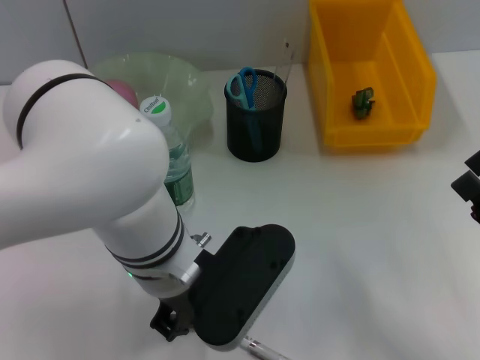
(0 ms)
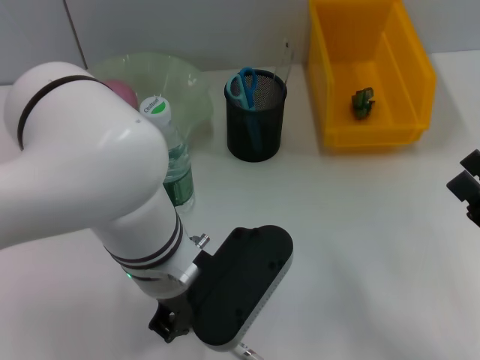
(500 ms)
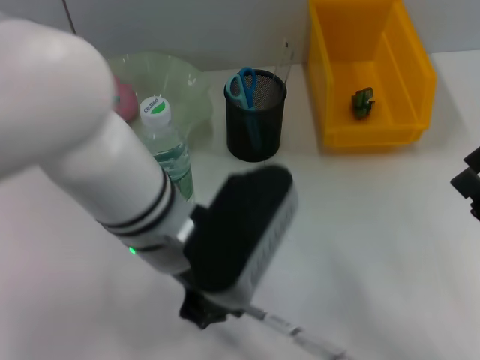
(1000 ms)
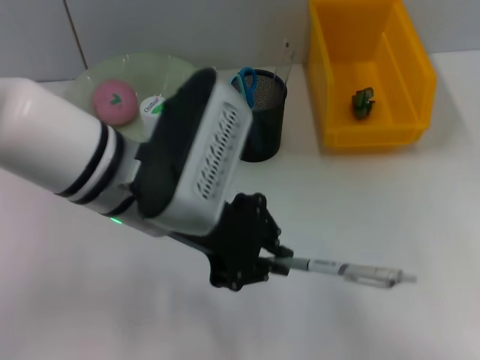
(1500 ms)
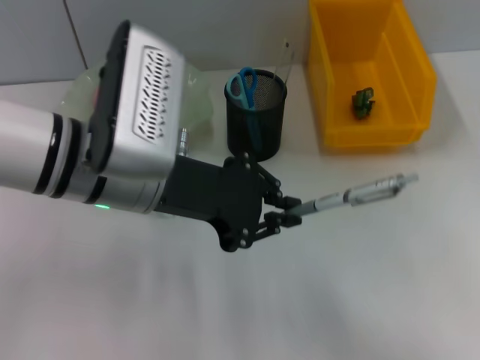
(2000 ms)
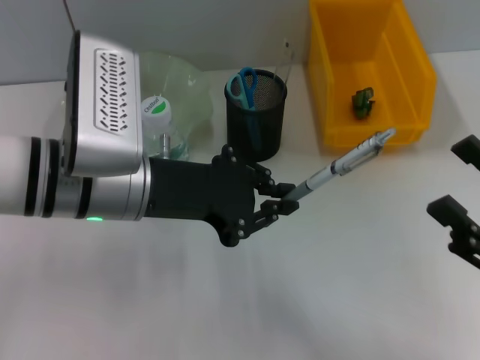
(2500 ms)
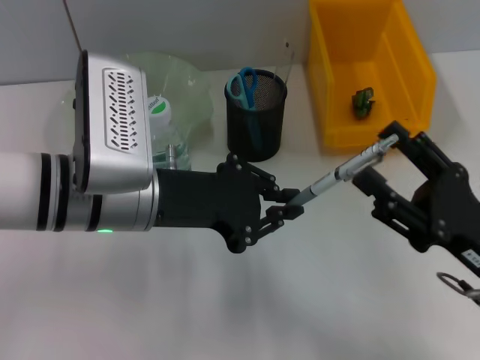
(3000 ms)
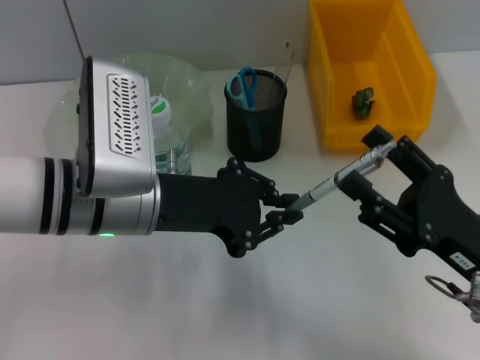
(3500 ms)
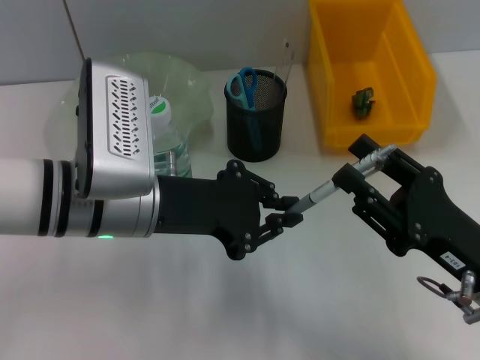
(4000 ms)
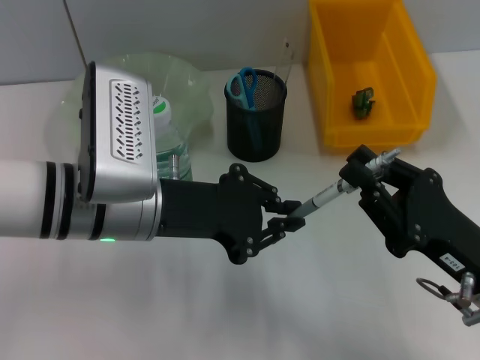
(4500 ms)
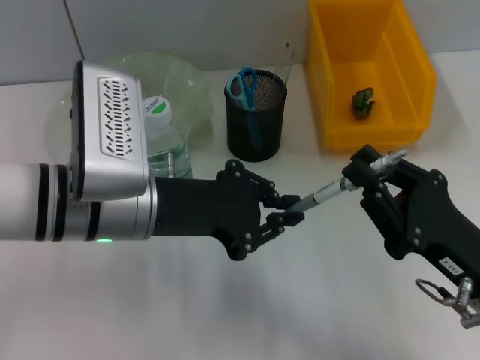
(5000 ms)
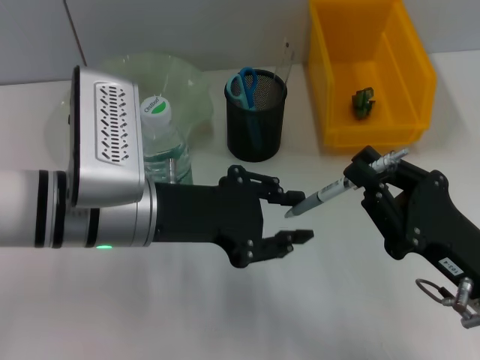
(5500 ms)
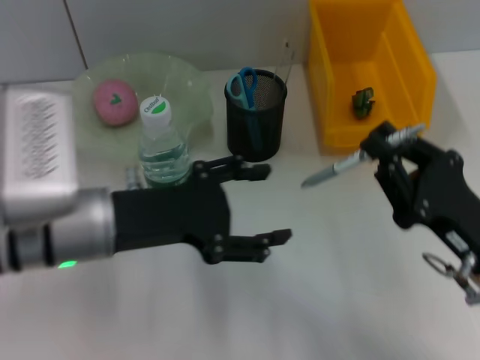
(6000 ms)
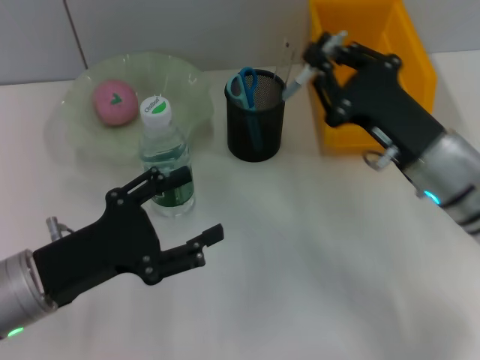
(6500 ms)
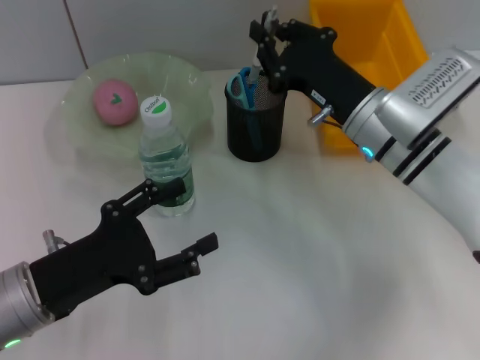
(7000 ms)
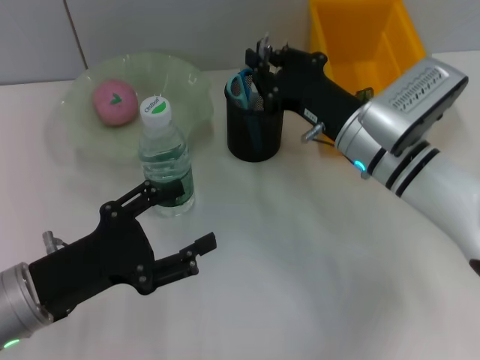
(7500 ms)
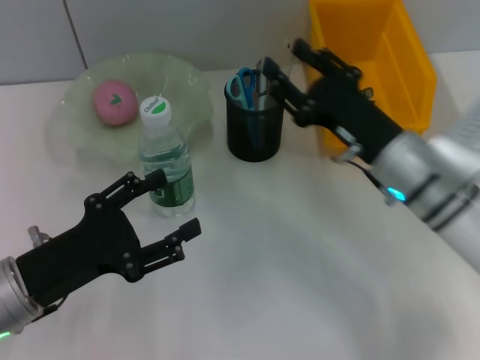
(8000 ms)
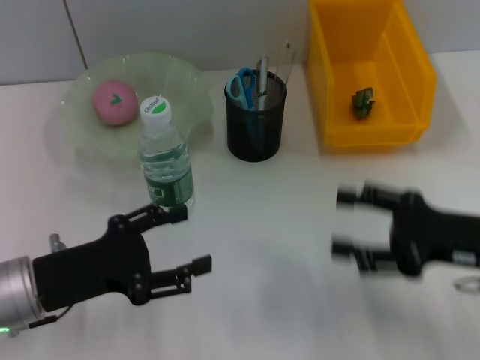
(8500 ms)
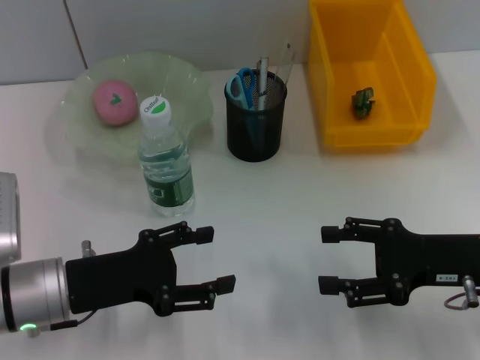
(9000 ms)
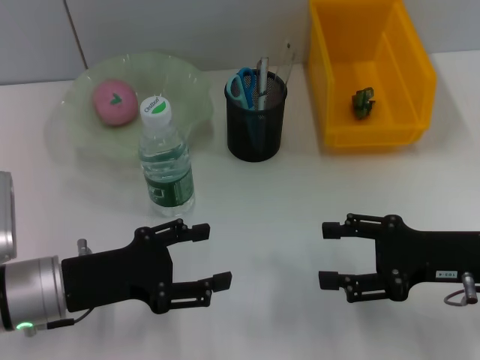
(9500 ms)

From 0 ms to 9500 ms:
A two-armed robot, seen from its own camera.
Step, from 500 ms to 5000 ms: Pass the gray spring-action pen from the left hand to the right hand.
Step, from 5500 ms to 7500 ms: Place the gray spring-action pen into the pen holder with the left hand.
From 0 ms to 2000 ms: The left gripper travels to the left by some 5 cm.
From 2000 ms to 4000 ms: The right gripper travels to the left by roughly 10 cm.
From 4000 ms to 5500 ms: The right gripper closes up.
From 5500 ms to 7500 ms: The left gripper moves to the left, downward and backward, approximately 15 cm, and opens, while the right gripper is displaced forward and to the left by some 20 cm.
From 7500 ms to 9500 ms: The right gripper heads to the right and backward, covering roughly 15 cm, and opens up.

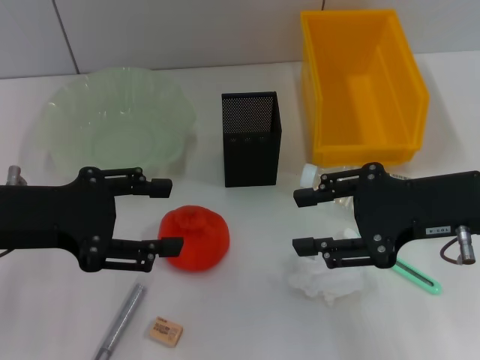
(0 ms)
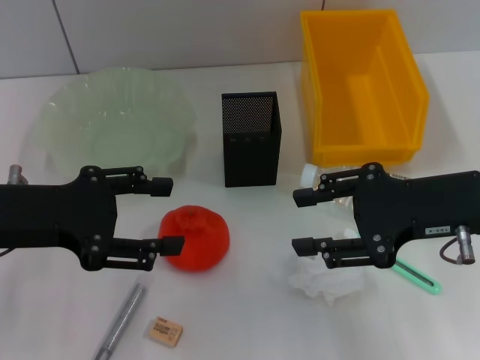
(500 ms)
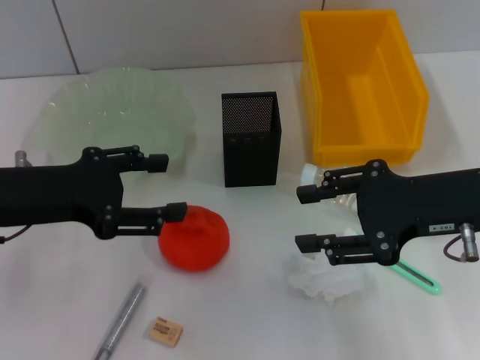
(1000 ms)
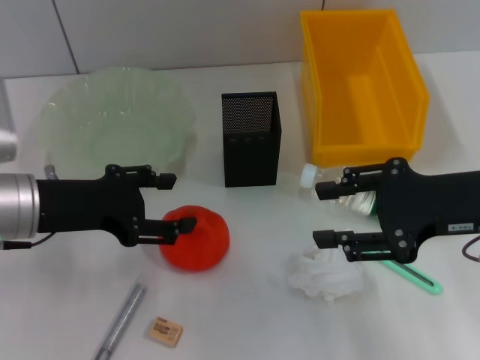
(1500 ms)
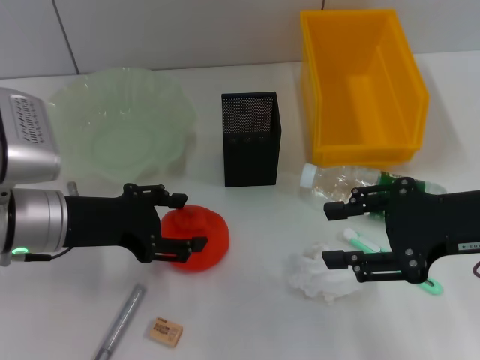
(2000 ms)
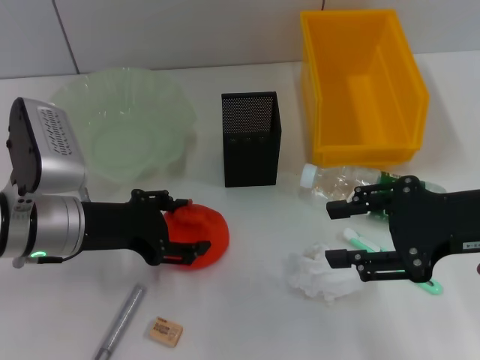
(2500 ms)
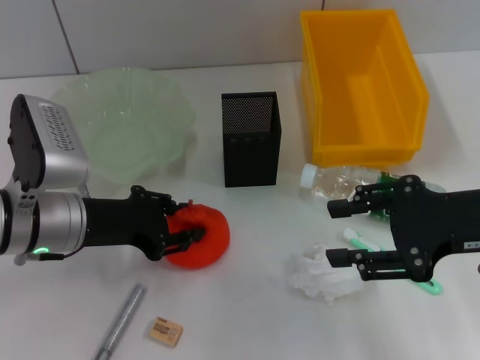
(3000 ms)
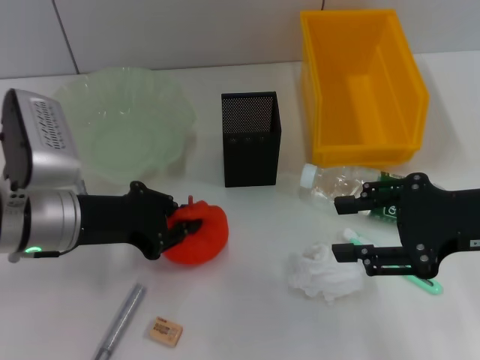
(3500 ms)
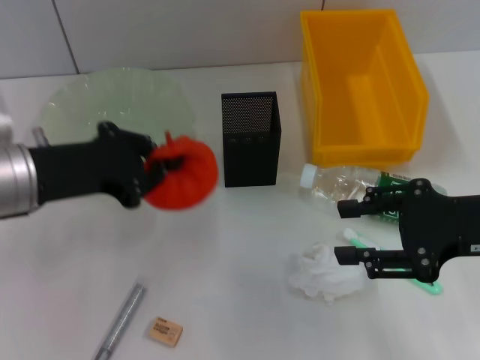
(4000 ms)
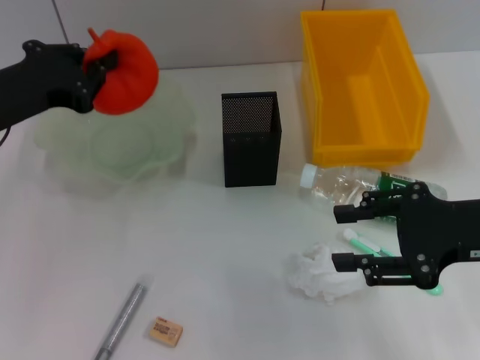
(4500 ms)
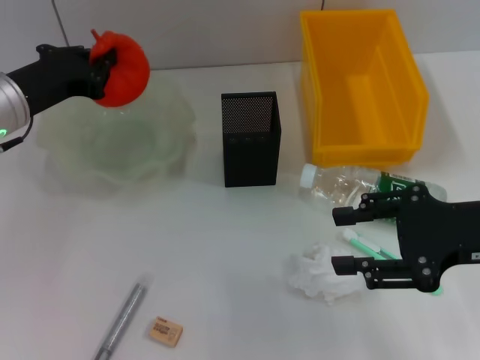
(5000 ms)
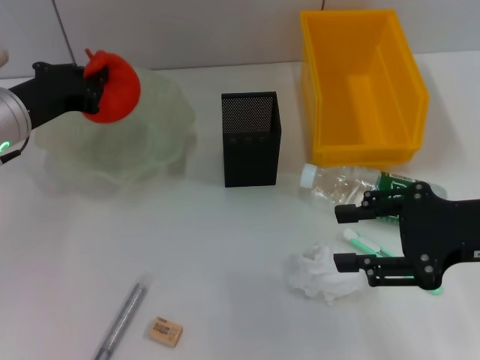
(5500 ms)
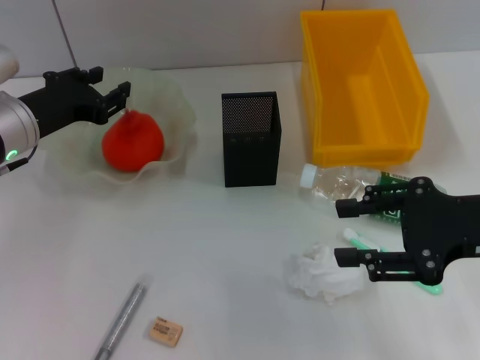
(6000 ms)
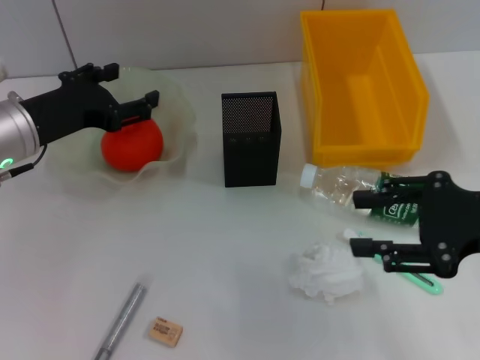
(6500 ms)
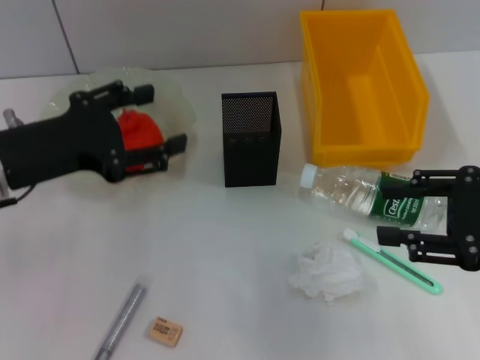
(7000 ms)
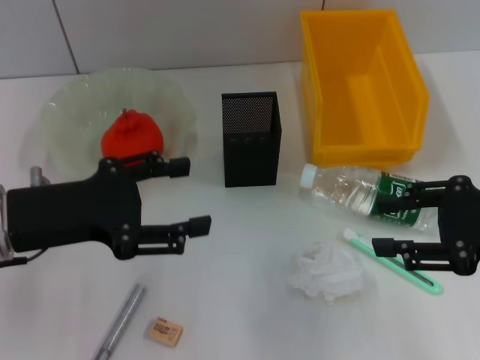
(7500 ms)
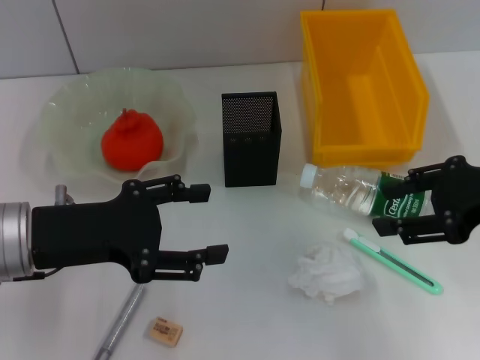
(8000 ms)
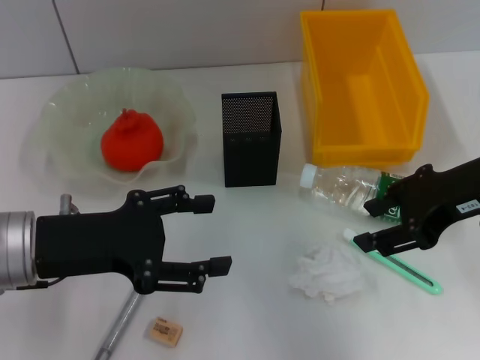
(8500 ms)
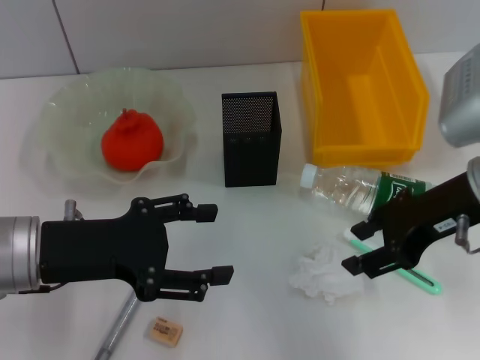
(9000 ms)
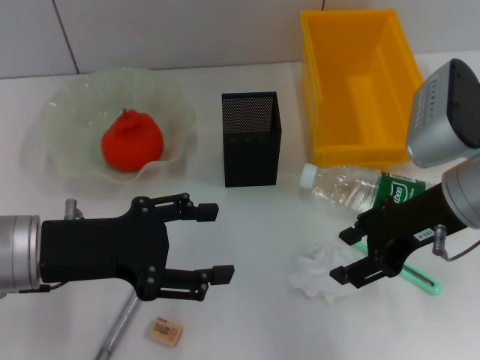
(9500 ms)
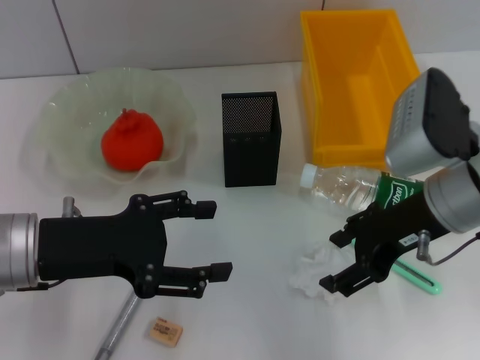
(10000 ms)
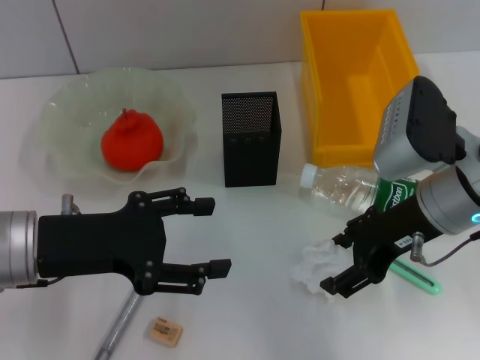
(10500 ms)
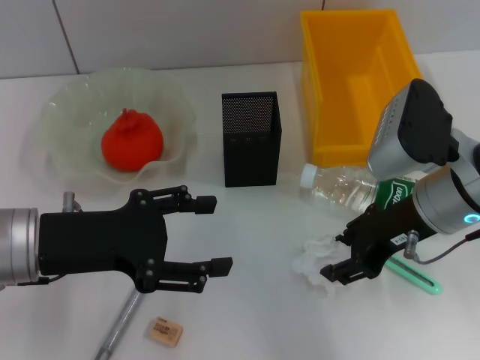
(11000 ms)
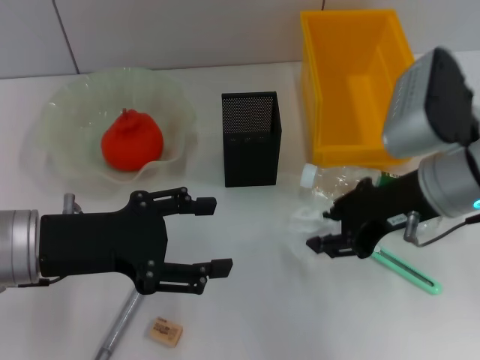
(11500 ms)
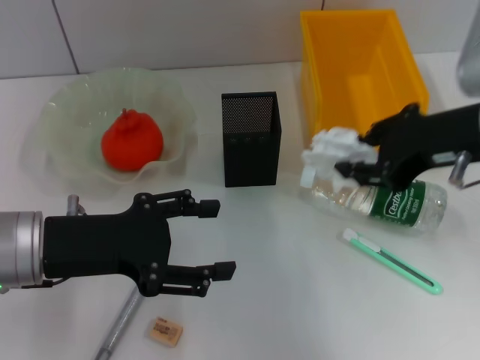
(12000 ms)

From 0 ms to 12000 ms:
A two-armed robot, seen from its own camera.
Step, from 0 ms to 3000 ms: Grab the orange with the left hand.
Step, from 3500 ms to 6000 ms: Place the orange into the fruit bowl with the left hand.
Step, from 6500 ms to 11000 ms: Grab the paper ball with the right hand.
From 0 ms to 2000 ms: The left gripper heads downward, covering approximately 5 cm.
From 2000 ms to 4000 ms: The left gripper closes.
From 4000 ms to 6000 ms: The left gripper shifts about 10 cm forward.
From 6000 ms to 8000 ms: The left gripper goes approximately 10 cm backward, and opens its fingers.
From 8000 ms to 10000 ms: The right gripper moves to the left, about 10 cm.
From 10000 ms to 12000 ms: The right gripper moves upward, some 5 cm, and closes up.

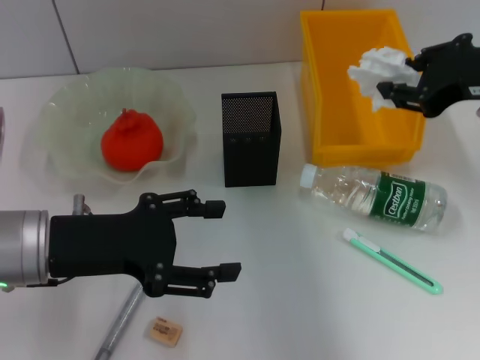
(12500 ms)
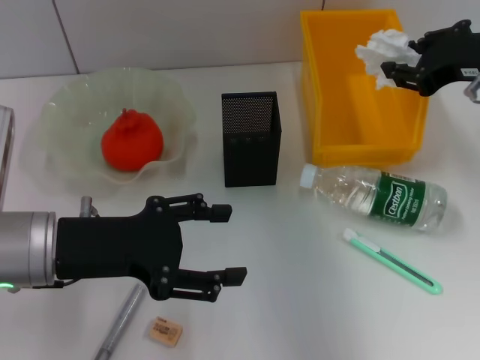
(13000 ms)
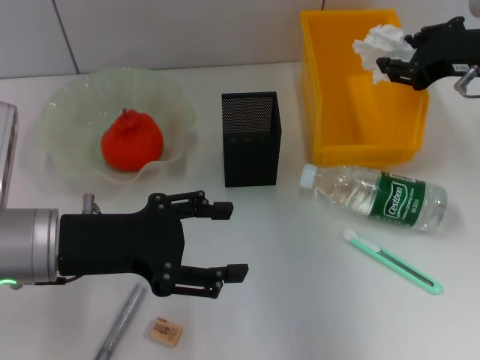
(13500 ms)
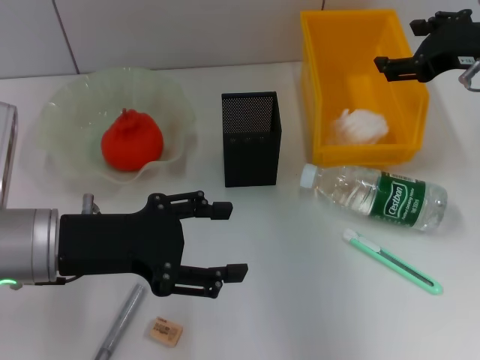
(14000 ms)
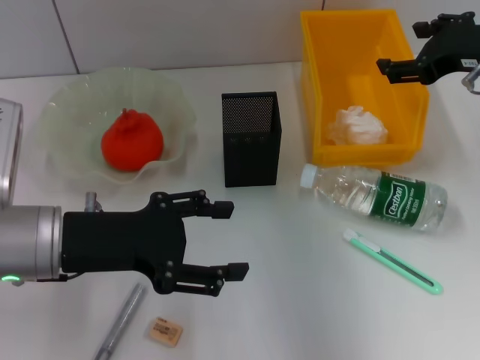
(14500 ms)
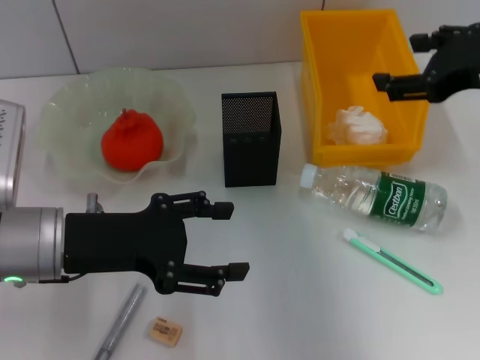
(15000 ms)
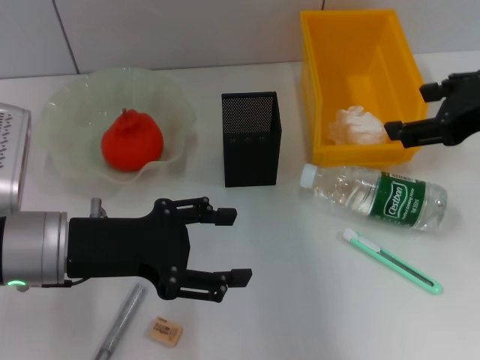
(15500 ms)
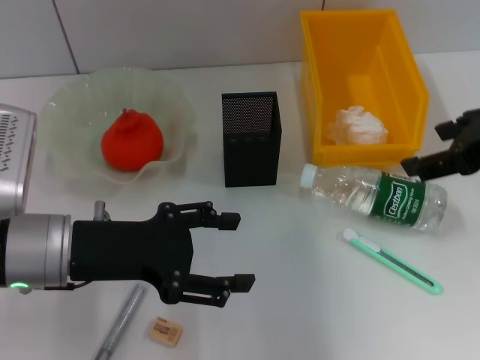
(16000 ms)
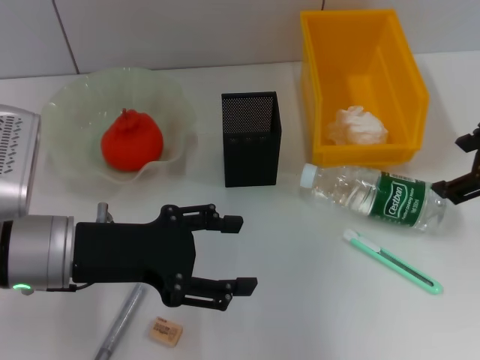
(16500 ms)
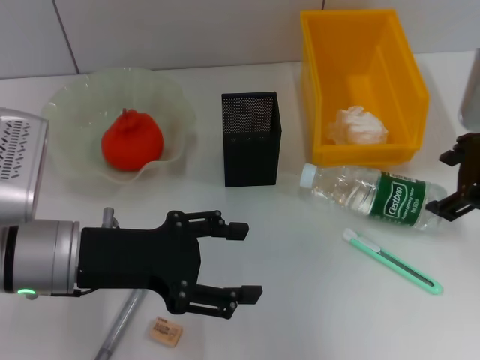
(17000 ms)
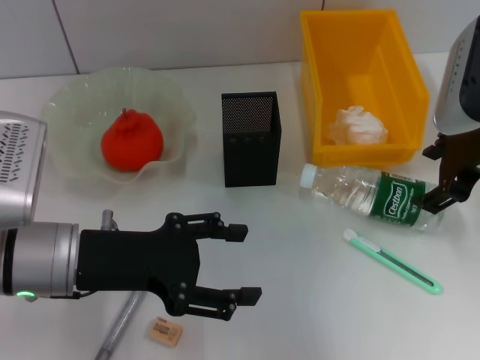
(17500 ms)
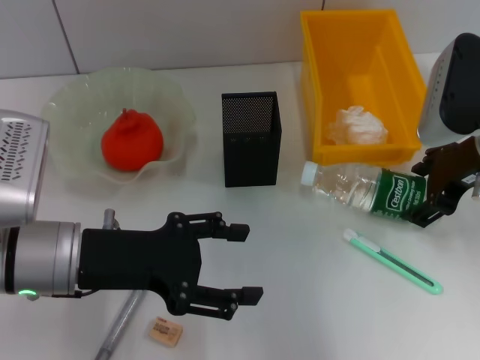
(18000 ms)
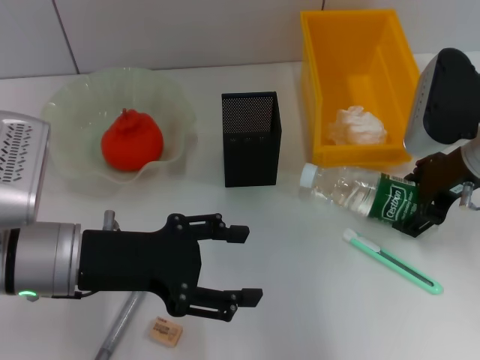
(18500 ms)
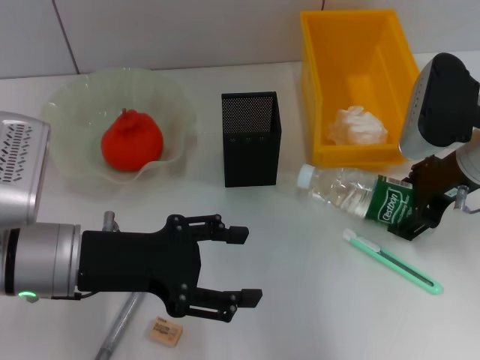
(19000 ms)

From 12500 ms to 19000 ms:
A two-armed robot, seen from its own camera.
Step, from 12500 ms to 14000 ms: Place the paper ball into the trash can with the right hand.
From 12500 ms to 14500 ms: The right gripper changes place by roughly 5 cm, and opens.
From 14500 ms to 17000 ms: The right gripper travels backward by some 5 cm.
From 17000 ms to 19000 ms: The right gripper goes some 5 cm downward.
